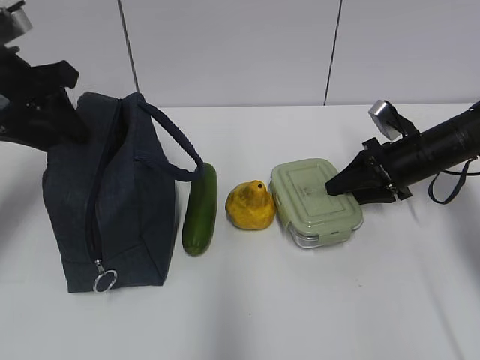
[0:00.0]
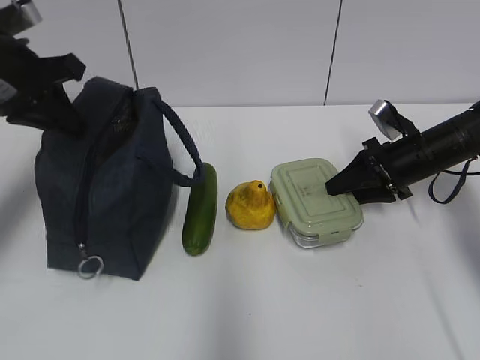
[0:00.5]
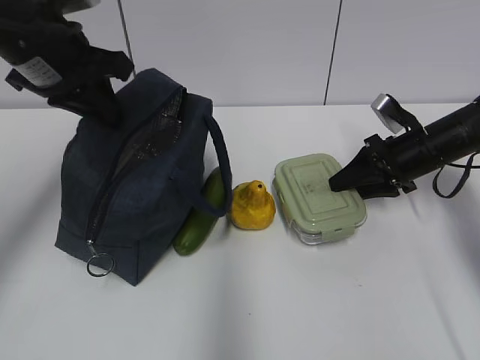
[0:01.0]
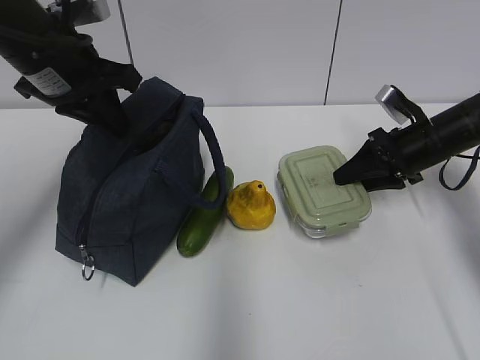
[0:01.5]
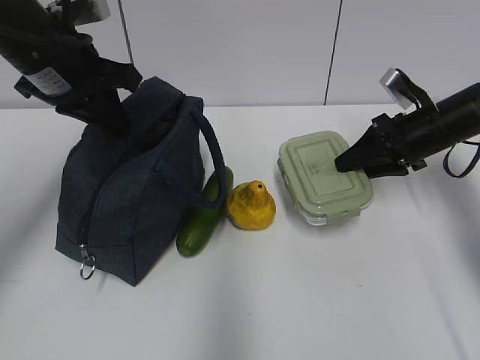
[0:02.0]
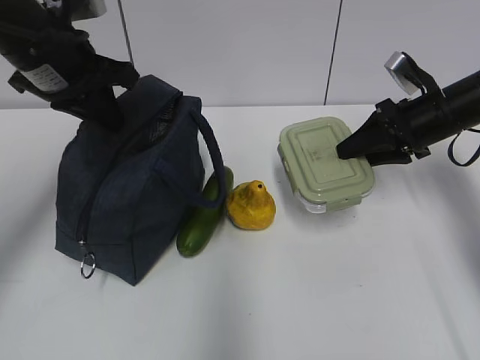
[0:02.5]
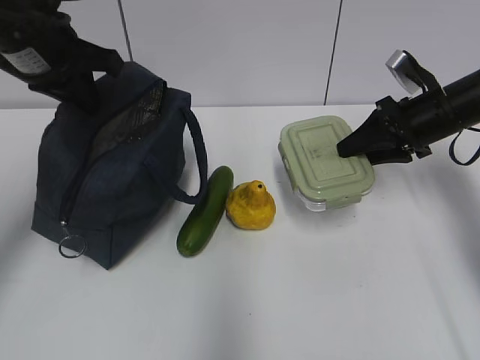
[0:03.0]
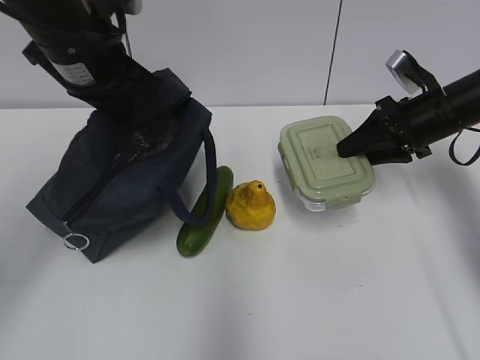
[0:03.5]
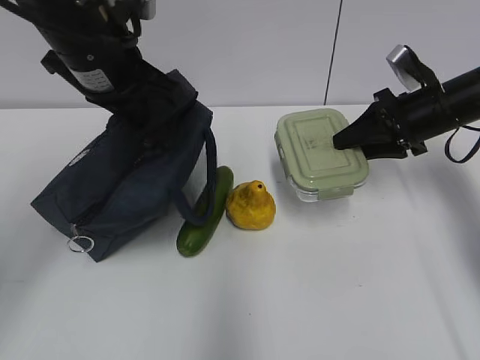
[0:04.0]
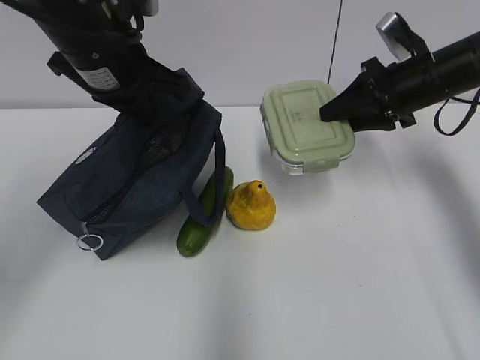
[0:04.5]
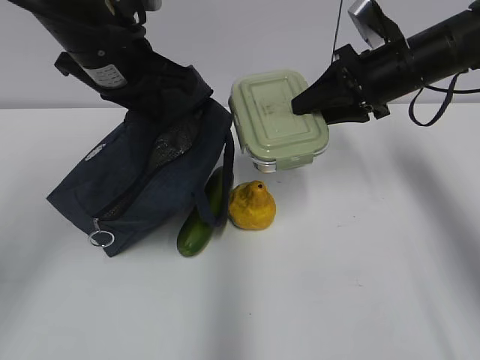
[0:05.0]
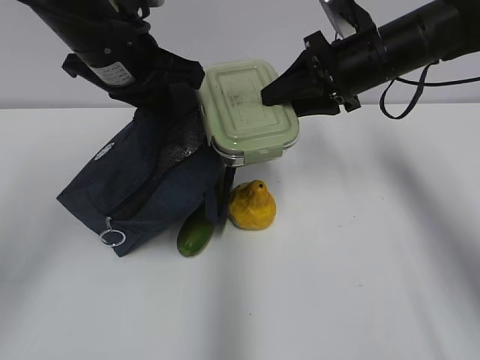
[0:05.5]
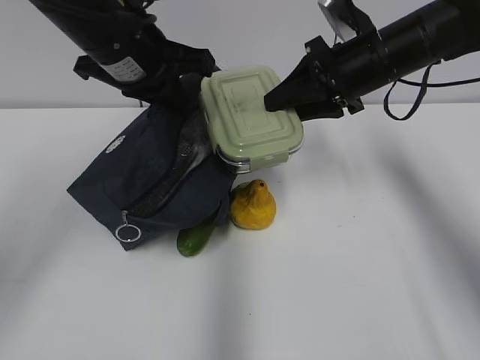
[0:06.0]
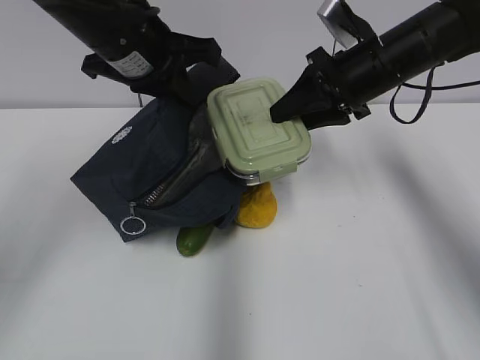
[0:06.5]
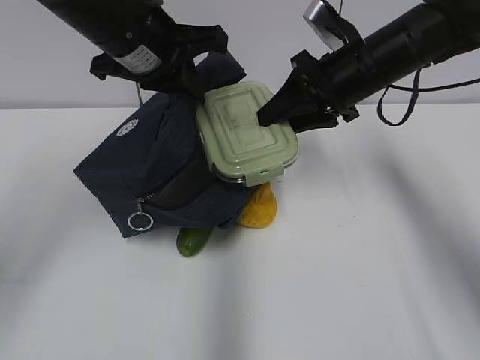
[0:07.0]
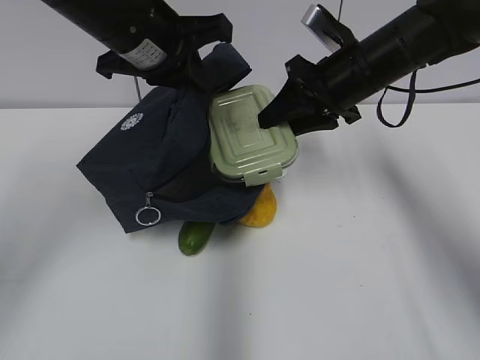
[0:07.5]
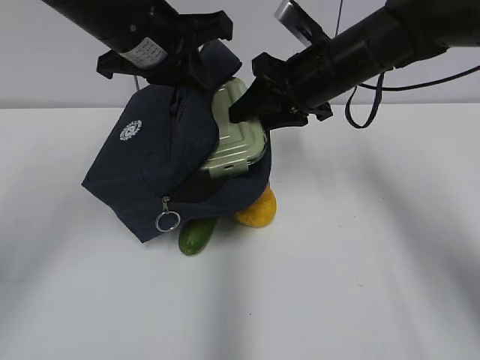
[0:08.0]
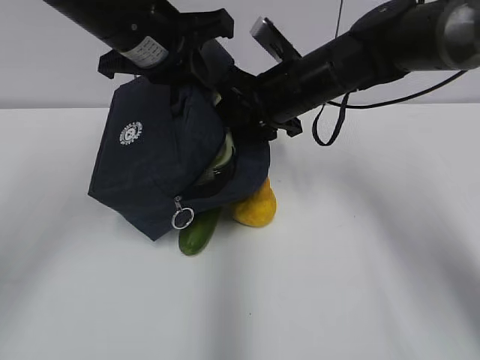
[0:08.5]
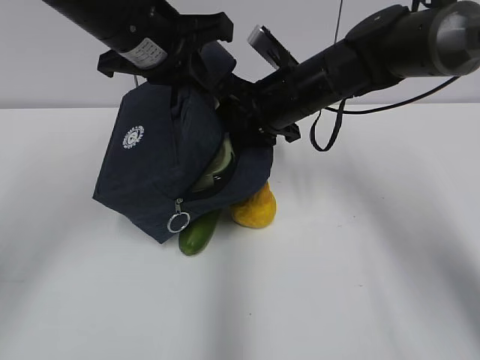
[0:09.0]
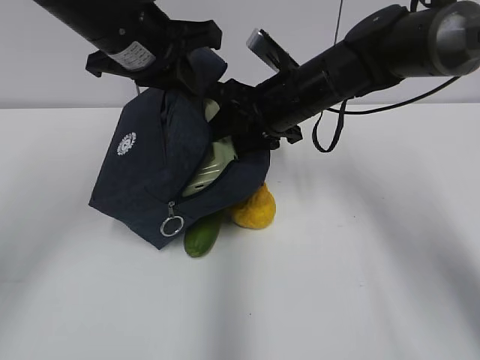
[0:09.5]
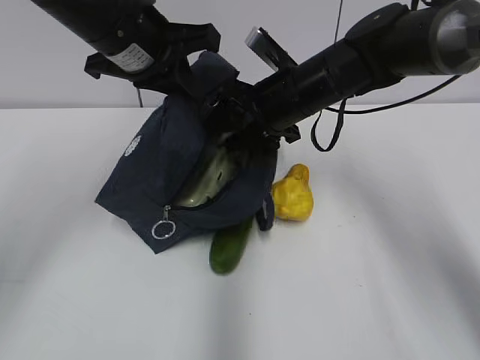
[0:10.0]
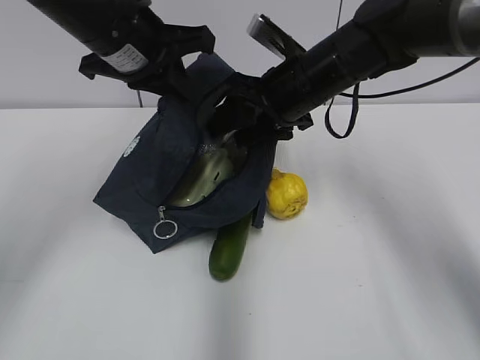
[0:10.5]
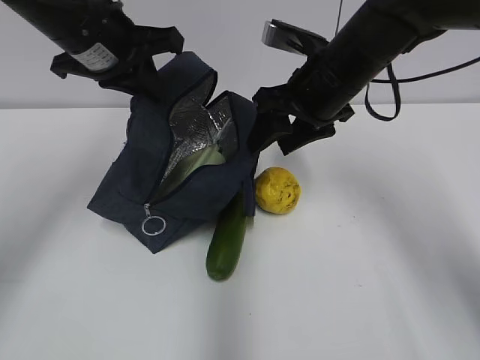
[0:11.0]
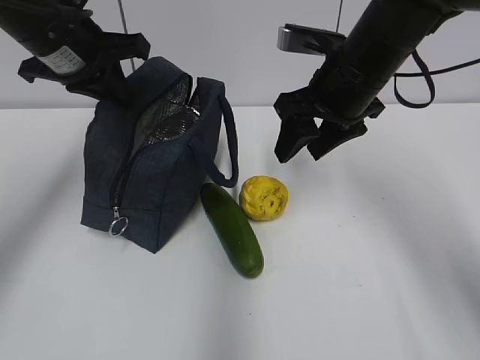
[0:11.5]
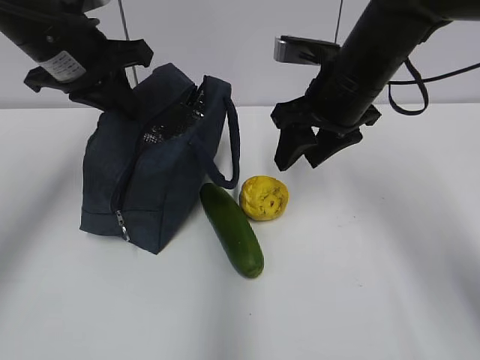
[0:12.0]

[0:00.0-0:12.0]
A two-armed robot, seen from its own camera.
0:00.0 to 0:02.0: The left gripper heads to the right, covering approximately 5 cm, and closes up.
0:02.0 to 0:04.0: The left gripper changes place by roughly 5 cm.
0:04.0 to 0:06.0: The right gripper travels to the left and upward by about 10 cm.
0:06.0 to 0:08.0: The right gripper moves to the left, approximately 5 cm.
0:08.0 to 0:10.0: The grippers make only small movements.
0:10.0 to 0:12.0: The right gripper changes place by roughly 5 cm. Meanwhile the left gripper heads to the left, covering about 5 cm.

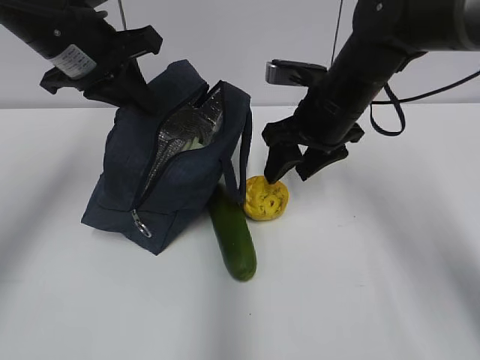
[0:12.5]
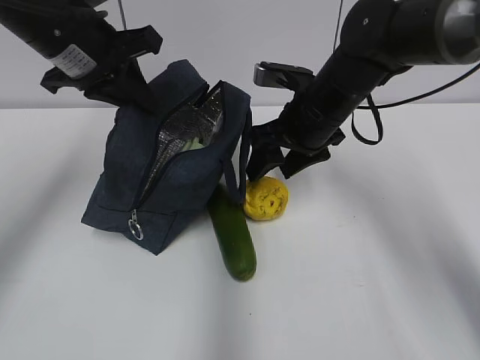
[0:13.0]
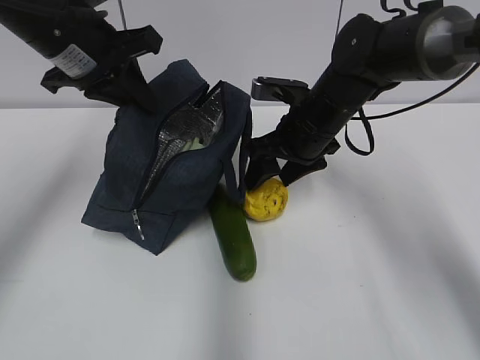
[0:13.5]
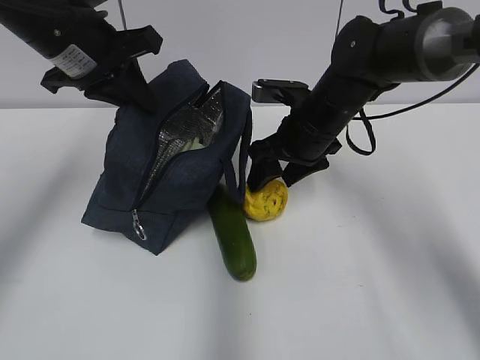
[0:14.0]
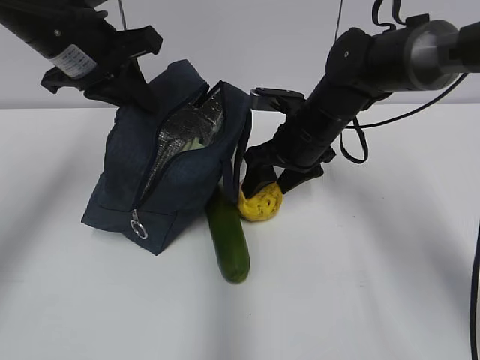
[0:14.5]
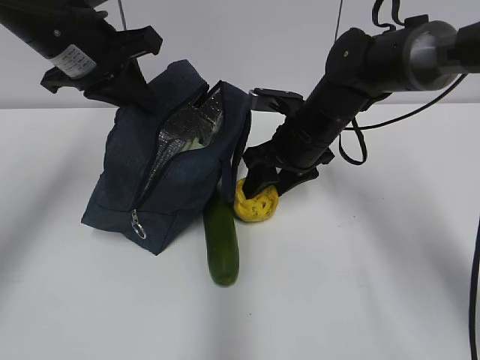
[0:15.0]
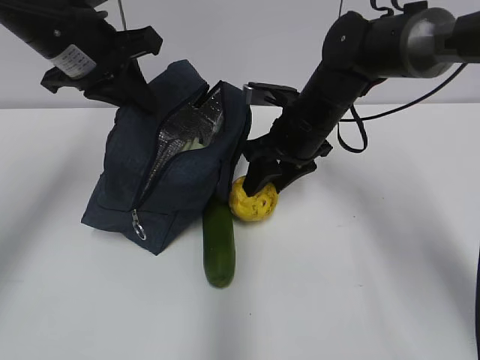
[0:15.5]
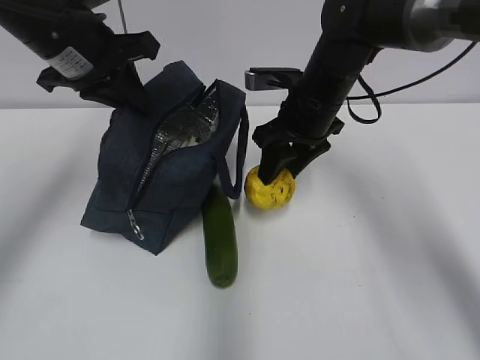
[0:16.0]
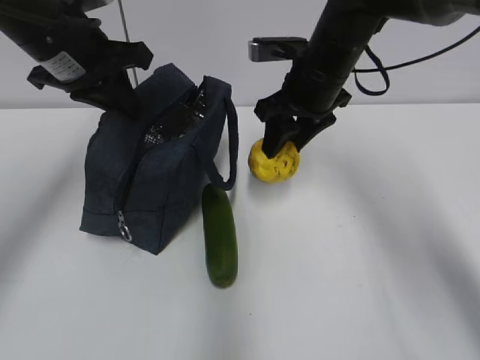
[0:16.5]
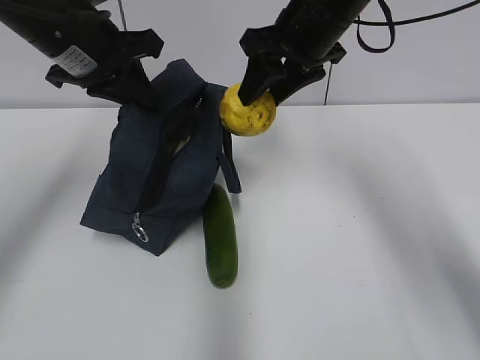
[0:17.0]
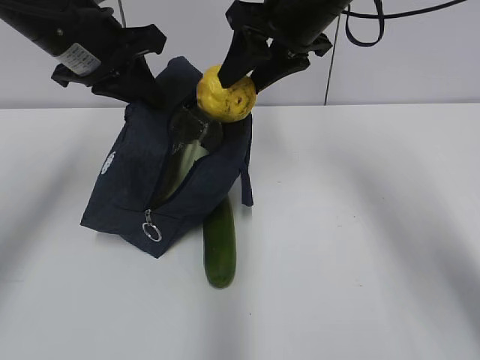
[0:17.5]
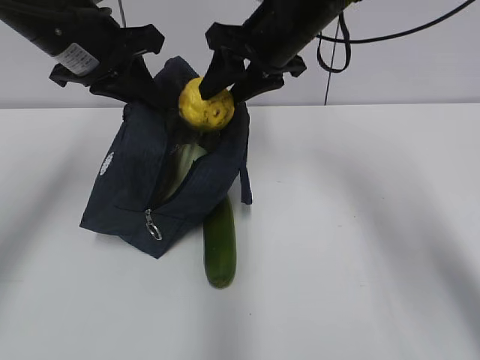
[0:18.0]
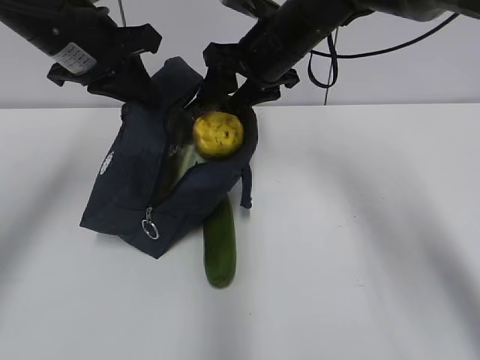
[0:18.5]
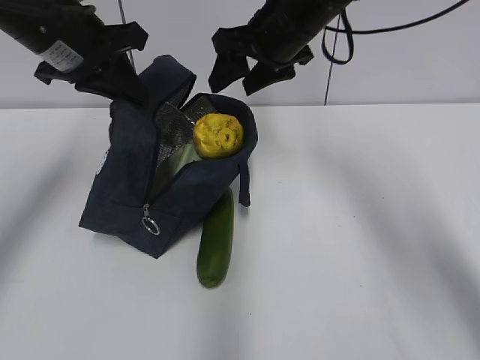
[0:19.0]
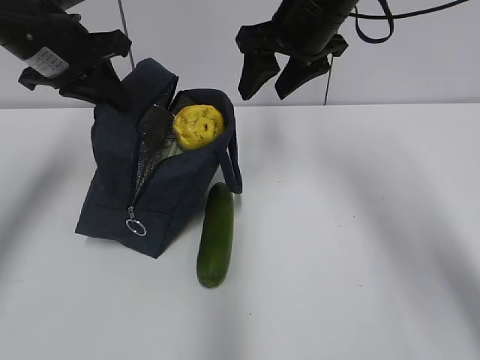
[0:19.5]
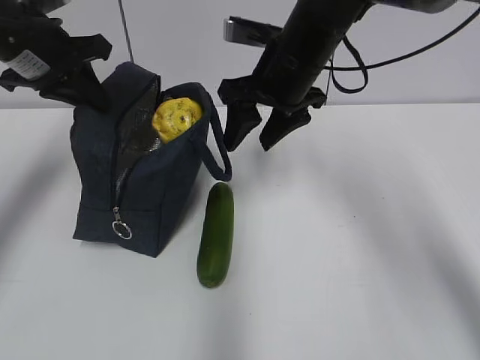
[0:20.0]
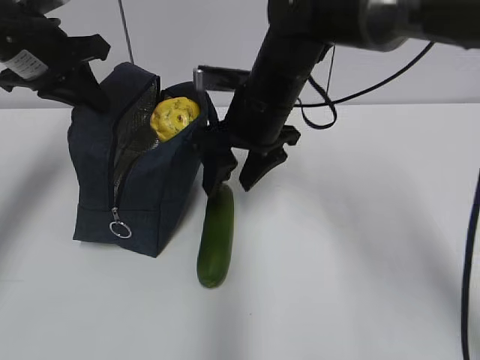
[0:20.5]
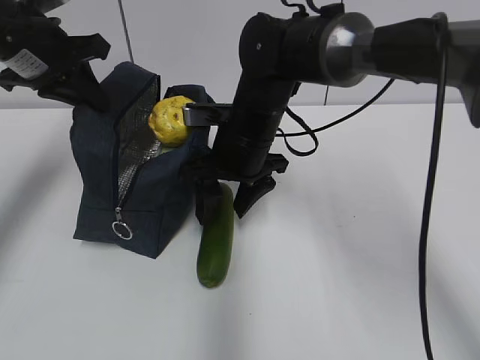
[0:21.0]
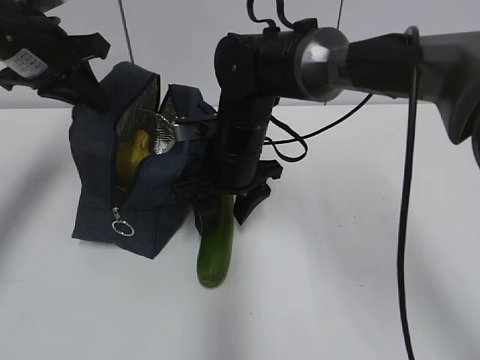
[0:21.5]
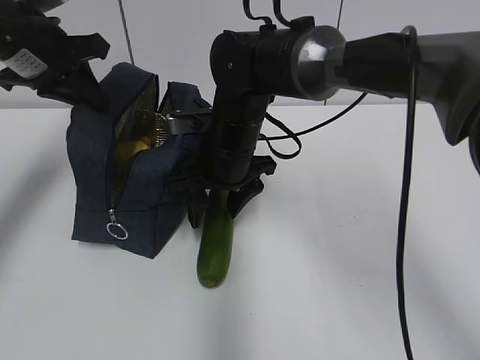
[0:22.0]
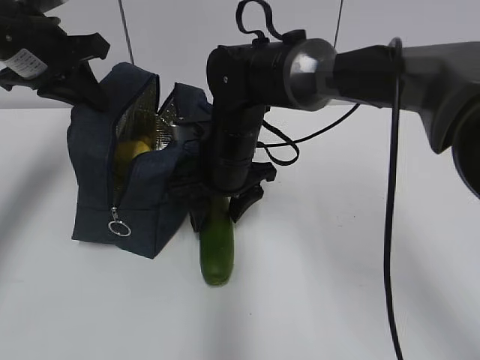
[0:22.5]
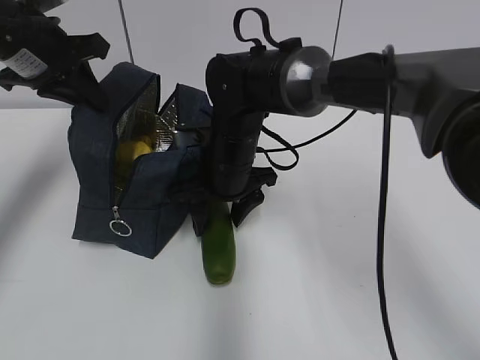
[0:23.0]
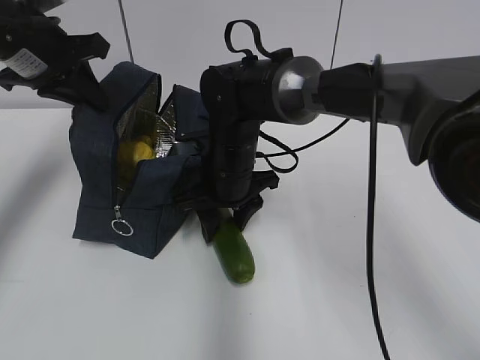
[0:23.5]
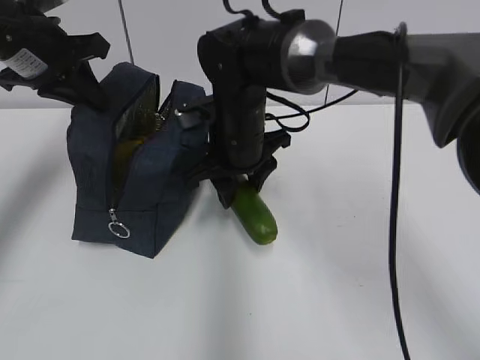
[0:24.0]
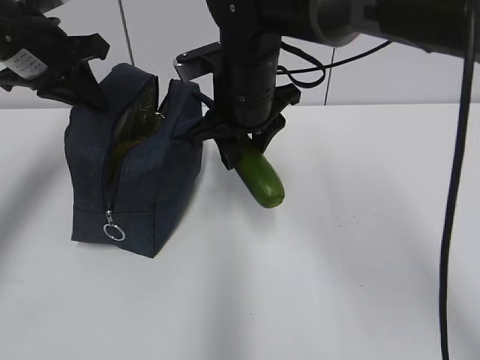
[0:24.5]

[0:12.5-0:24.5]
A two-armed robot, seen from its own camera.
0:12.5 to 0:14.5: The right gripper moves downward, about 5 cm.
0:14.5 to 0:16.5: The right gripper moves upward, about 5 cm.
0:16.5 to 0:18.5: The right gripper reaches some 10 cm upward, then returns.
0:18.5 to 0:20.5: The right gripper is displaced backward by approximately 5 cm. The left gripper is displaced to the left by approximately 5 cm.
0:20.5 to 0:22.5: The right gripper heads downward, covering approximately 5 cm.
0:22.5 to 0:24.5: The right gripper heads upward, covering roughly 10 cm.

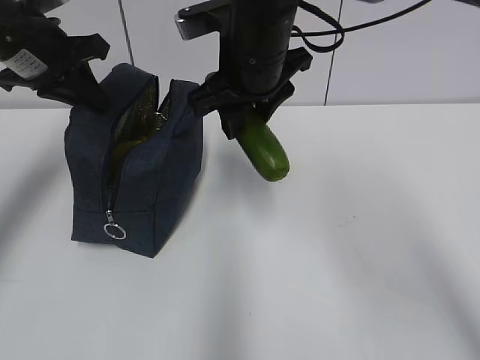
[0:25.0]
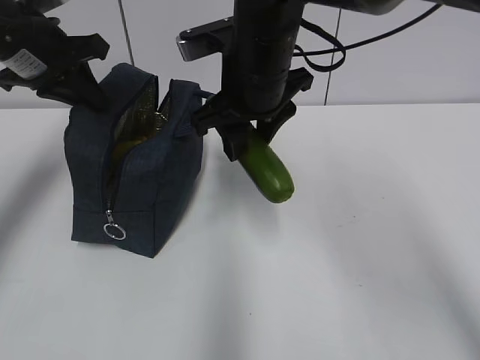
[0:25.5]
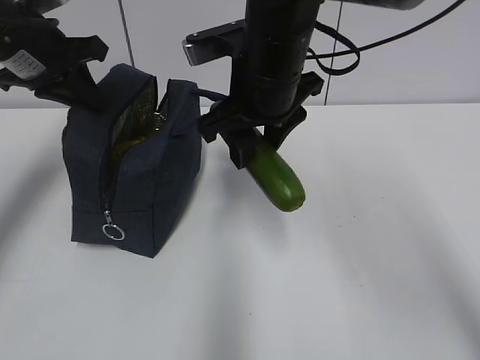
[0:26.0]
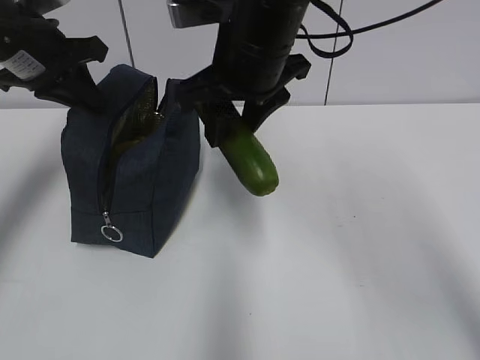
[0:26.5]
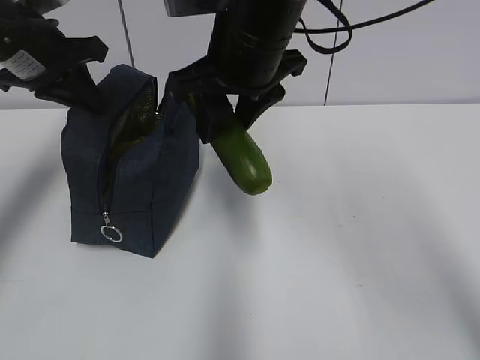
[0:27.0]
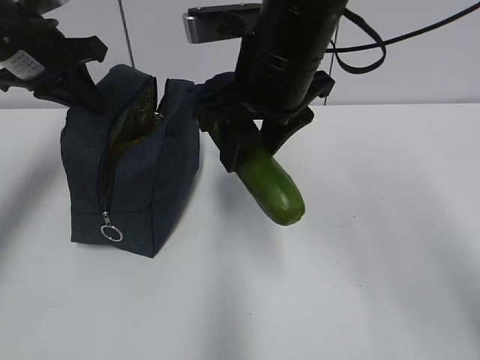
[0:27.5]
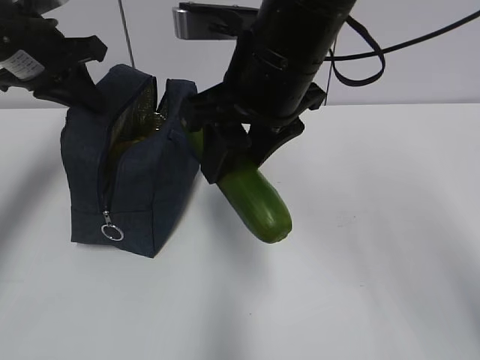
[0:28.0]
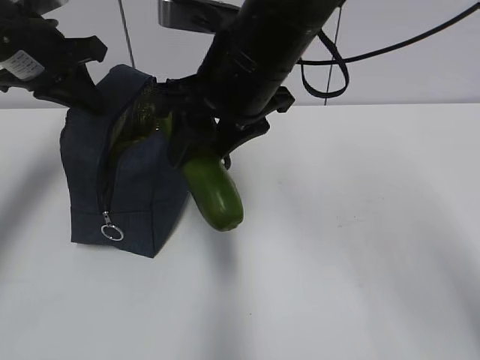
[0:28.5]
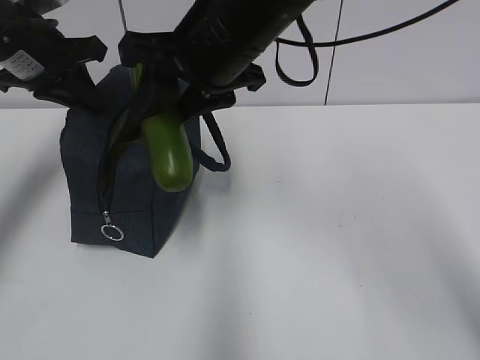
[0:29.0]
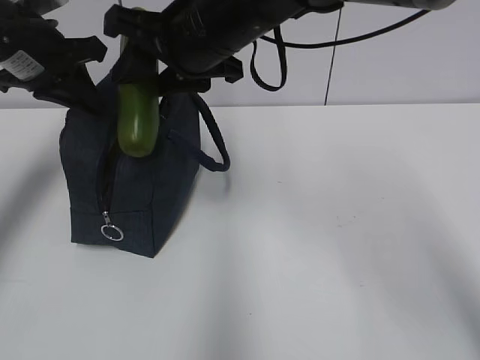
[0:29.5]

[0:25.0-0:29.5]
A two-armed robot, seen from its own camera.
0:25.0 to 0:27.0: There are only small adjustments of the grippers.
